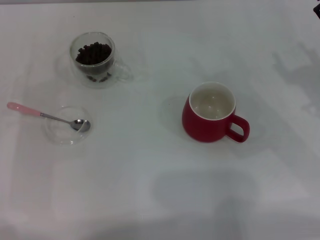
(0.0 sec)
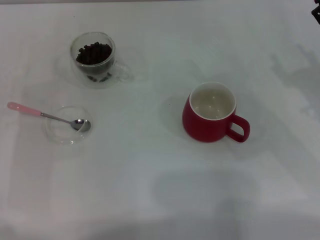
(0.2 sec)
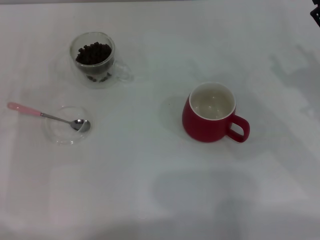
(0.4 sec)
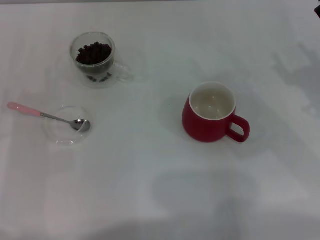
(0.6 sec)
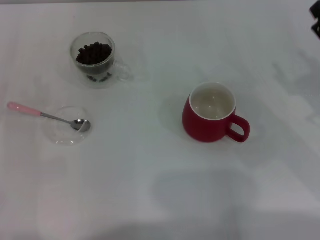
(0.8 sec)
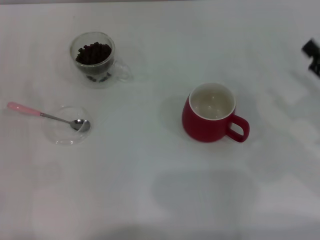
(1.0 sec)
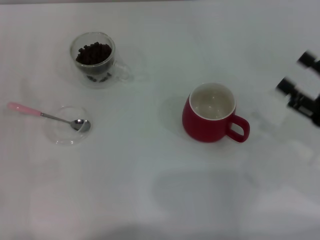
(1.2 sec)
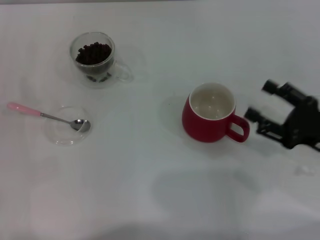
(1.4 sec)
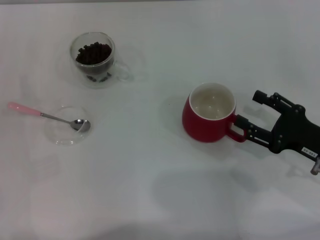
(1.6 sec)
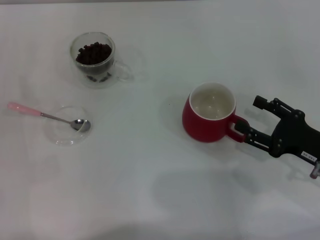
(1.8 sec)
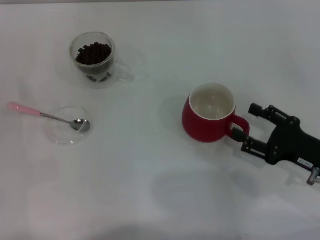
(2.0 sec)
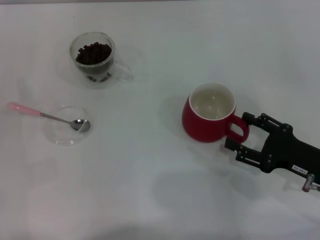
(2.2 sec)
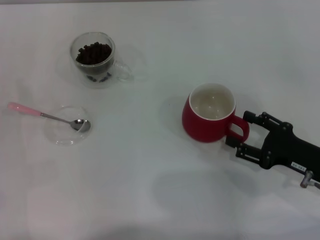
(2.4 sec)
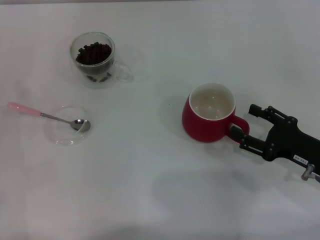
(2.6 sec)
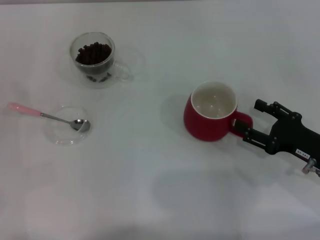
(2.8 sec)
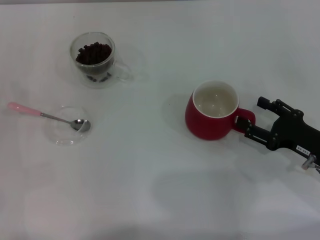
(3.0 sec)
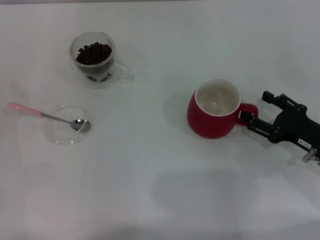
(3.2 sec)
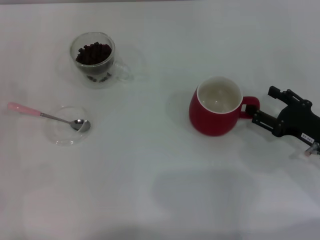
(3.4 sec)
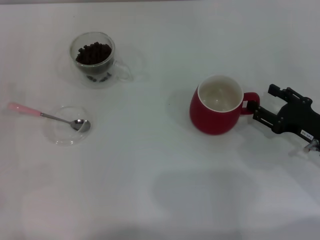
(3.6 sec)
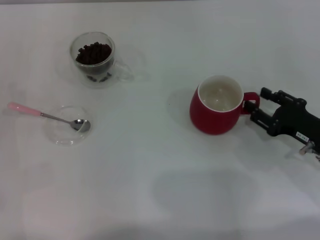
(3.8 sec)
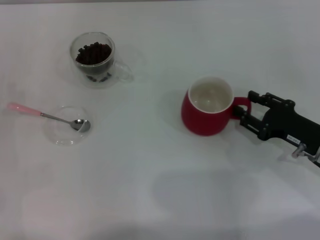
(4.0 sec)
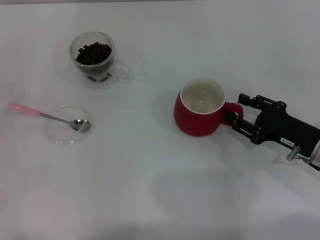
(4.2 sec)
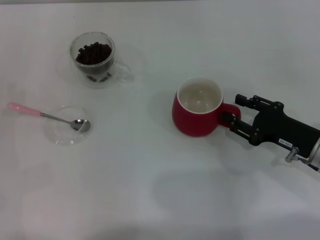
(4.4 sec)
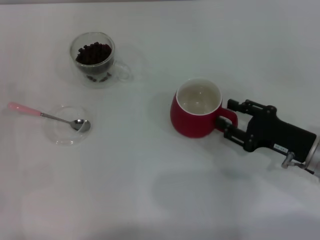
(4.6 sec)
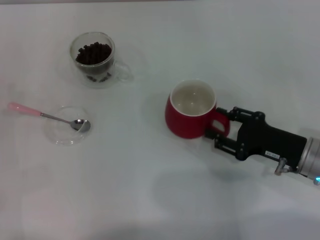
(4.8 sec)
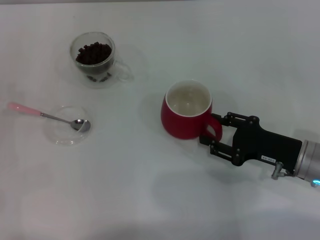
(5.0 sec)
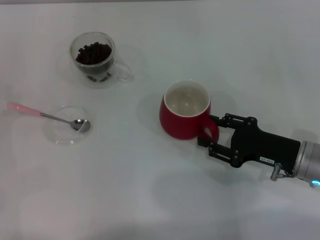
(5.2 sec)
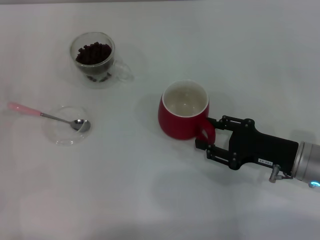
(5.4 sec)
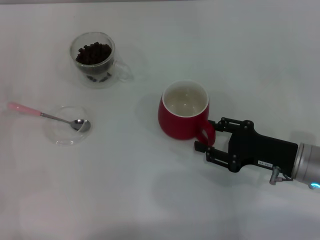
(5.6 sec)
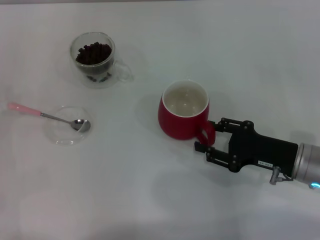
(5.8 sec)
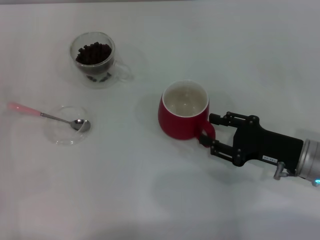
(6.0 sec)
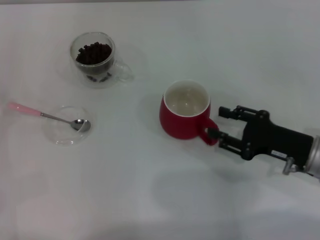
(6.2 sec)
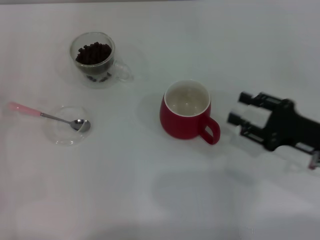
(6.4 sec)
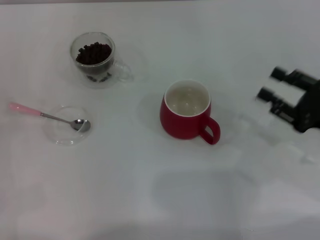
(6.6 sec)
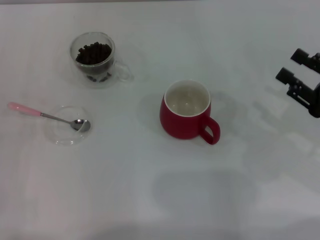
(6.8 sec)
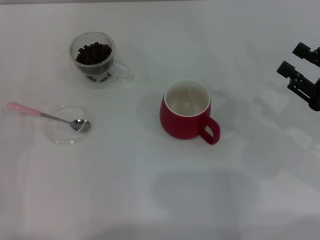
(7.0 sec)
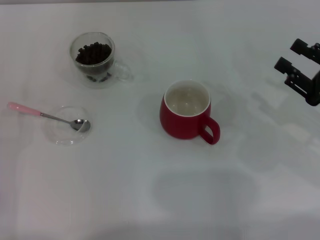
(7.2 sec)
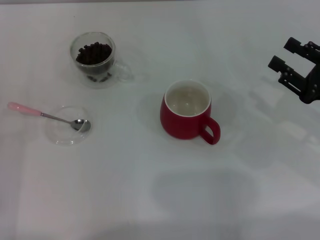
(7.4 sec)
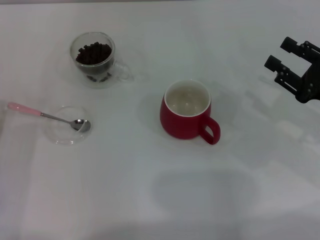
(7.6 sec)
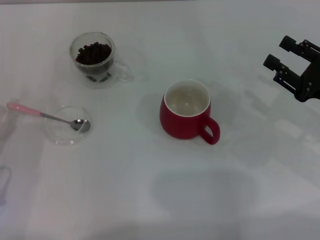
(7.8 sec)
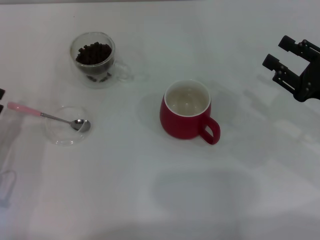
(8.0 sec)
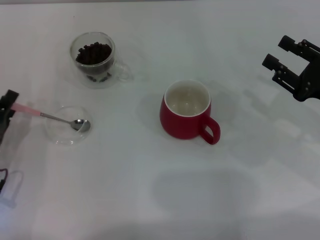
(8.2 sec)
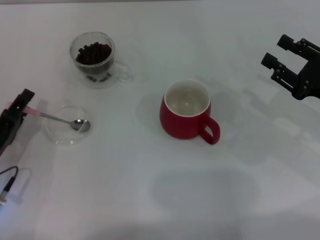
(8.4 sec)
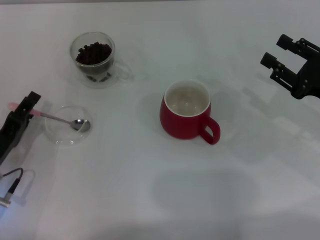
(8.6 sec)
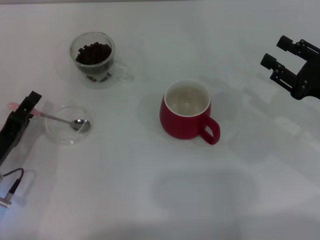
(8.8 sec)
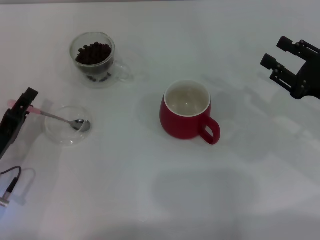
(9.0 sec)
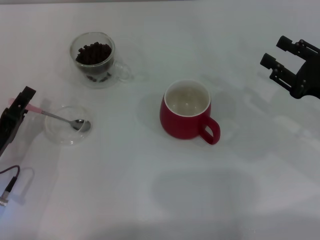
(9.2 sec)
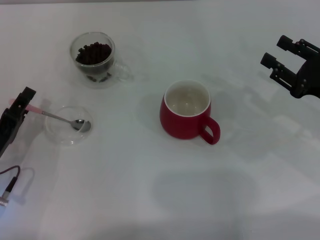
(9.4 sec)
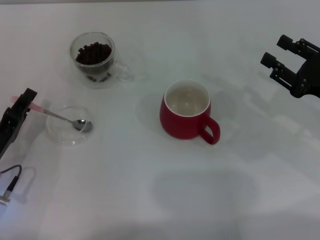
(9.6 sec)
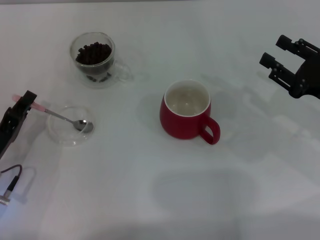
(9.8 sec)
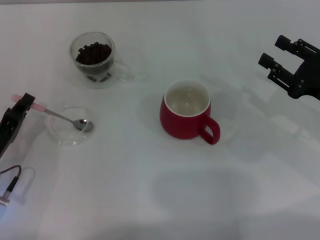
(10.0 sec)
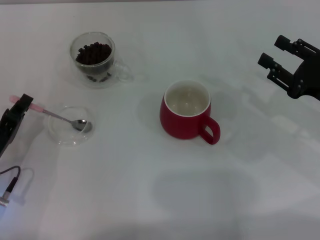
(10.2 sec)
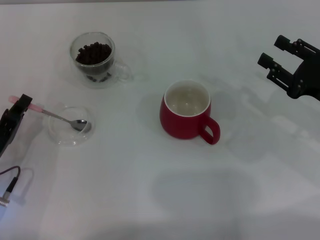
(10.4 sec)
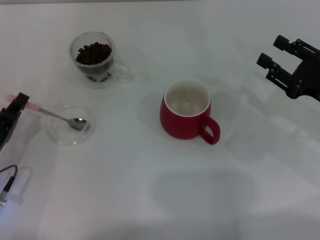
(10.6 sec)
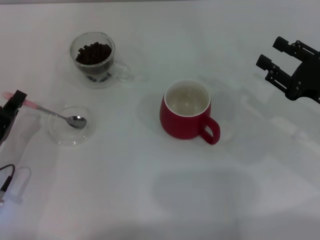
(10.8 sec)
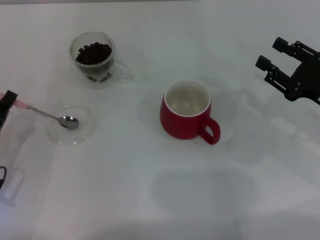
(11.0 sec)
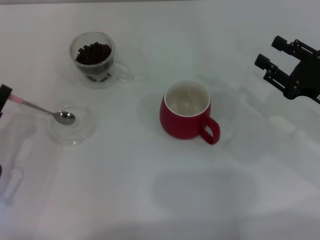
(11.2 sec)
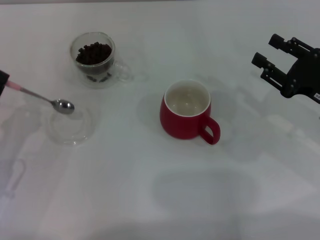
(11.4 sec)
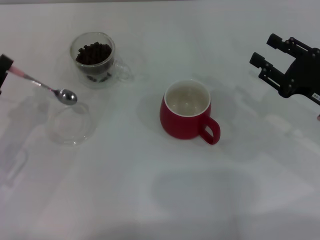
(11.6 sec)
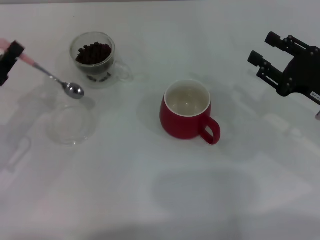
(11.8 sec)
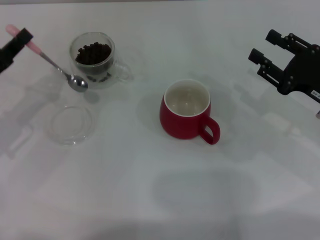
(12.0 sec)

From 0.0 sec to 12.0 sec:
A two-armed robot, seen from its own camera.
Task of the whole recording: Use a pink spoon to take out the coffee beans from the glass and pour them into the red cup.
Step, from 0.0 sec to 6.2 sec: Move the cup to the center of view with the left gripper.
Step, from 6.6 sec to 11.6 sec: Pick up the spoon with the right gripper.
From 0.0 sec to 1.6 sec: The right gripper is displaced backward by roughly 5 cm.
From 1.6 sec to 3.0 sec: The grippers make only small movements.
From 3.0 sec to 4.4 sec: The right gripper closes.
From 4.4 sec to 6.0 sec: The grippers make only small movements.
From 6.0 sec to 7.6 sec: The right gripper heads to the right, covering roughly 5 cm.
From 7.6 sec to 9.0 sec: The left gripper shifts by roughly 5 cm.
From 9.0 sec to 10.4 sec: The left gripper closes.
From 10.4 sec to 12.0 sec: The left gripper moves upward and forward, some 10 cm.

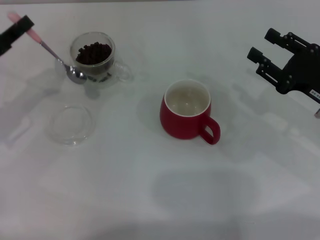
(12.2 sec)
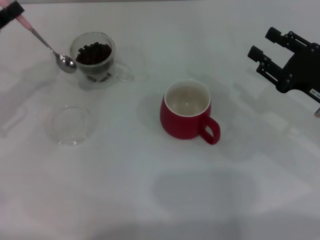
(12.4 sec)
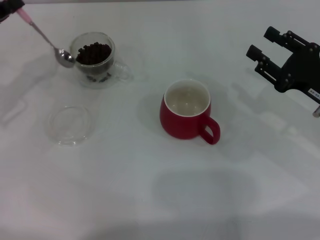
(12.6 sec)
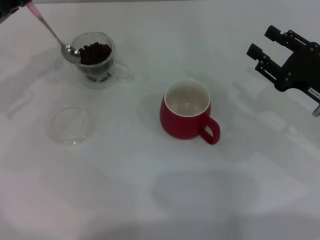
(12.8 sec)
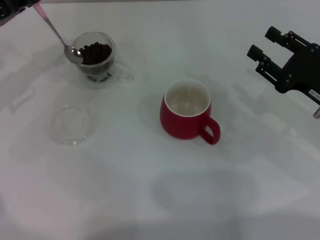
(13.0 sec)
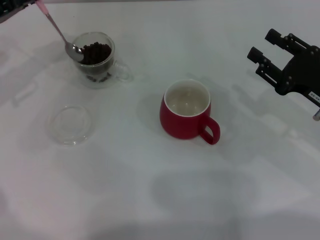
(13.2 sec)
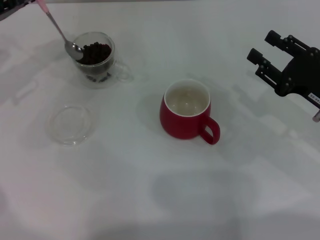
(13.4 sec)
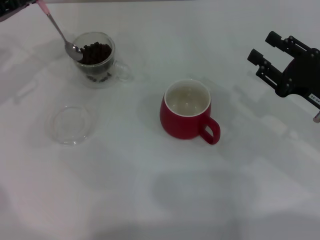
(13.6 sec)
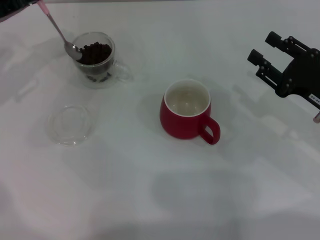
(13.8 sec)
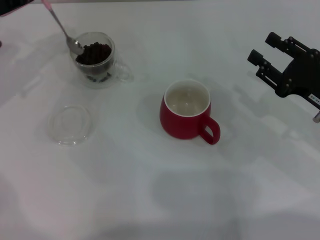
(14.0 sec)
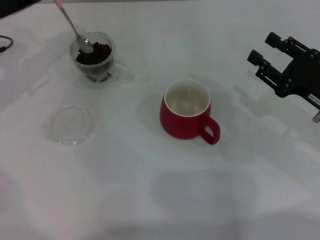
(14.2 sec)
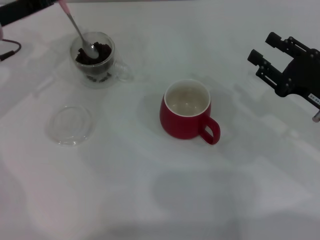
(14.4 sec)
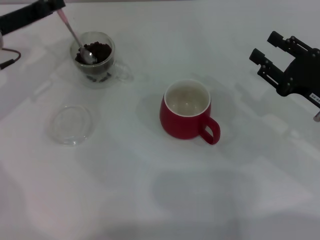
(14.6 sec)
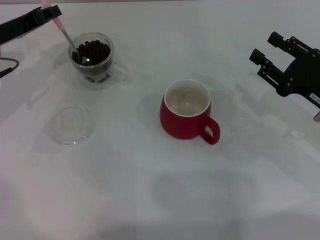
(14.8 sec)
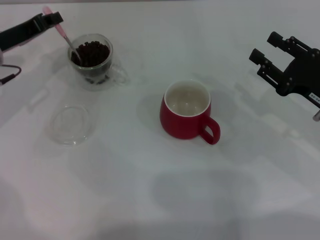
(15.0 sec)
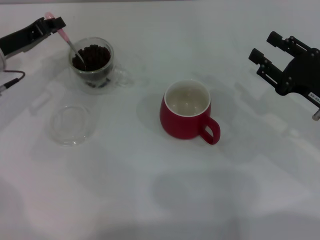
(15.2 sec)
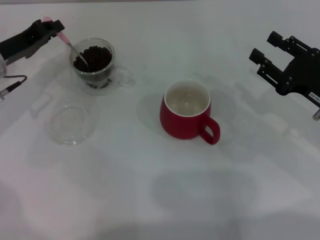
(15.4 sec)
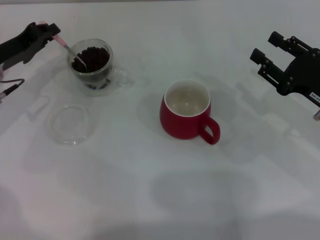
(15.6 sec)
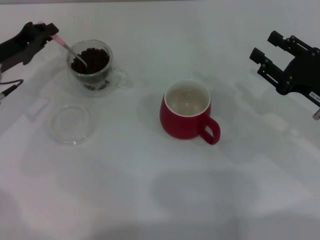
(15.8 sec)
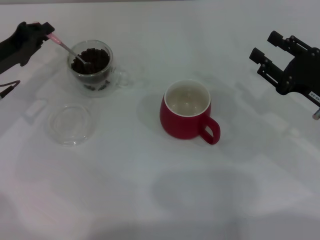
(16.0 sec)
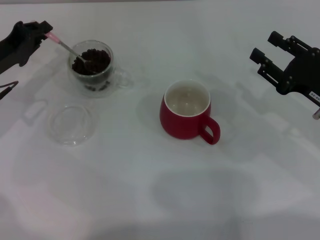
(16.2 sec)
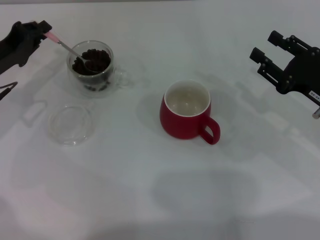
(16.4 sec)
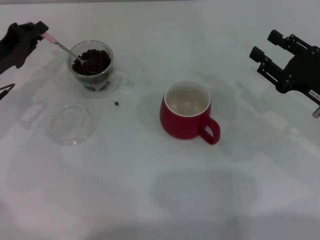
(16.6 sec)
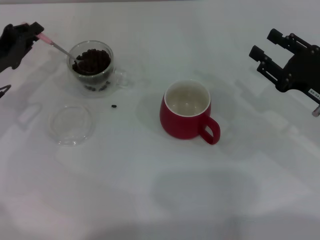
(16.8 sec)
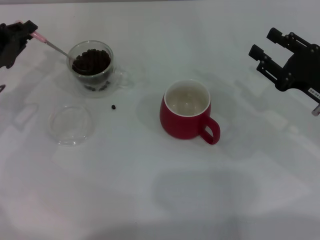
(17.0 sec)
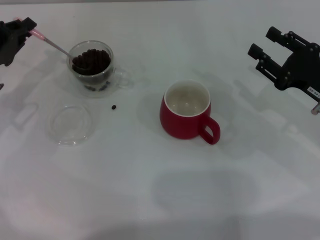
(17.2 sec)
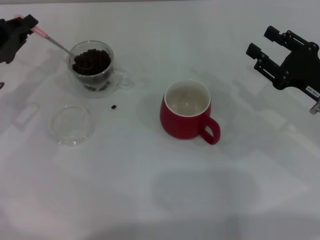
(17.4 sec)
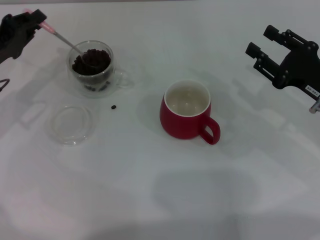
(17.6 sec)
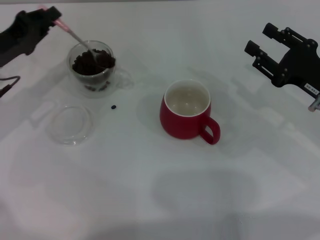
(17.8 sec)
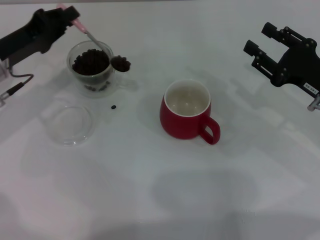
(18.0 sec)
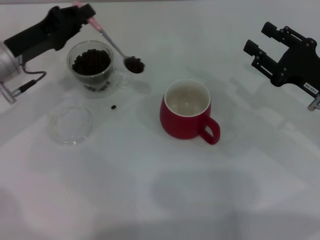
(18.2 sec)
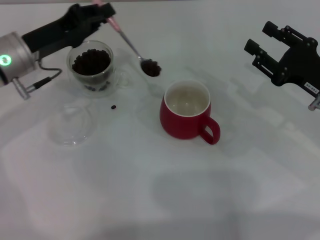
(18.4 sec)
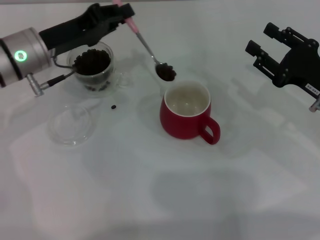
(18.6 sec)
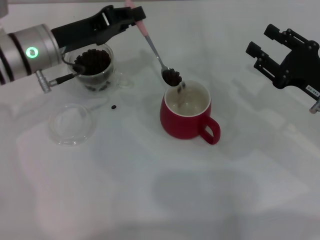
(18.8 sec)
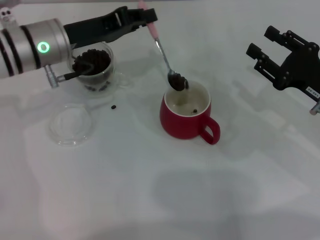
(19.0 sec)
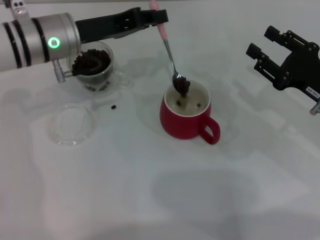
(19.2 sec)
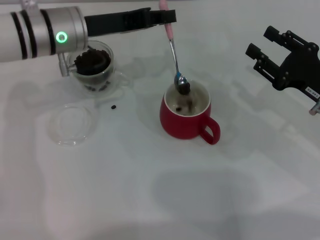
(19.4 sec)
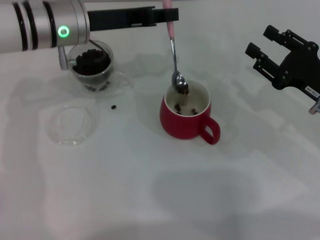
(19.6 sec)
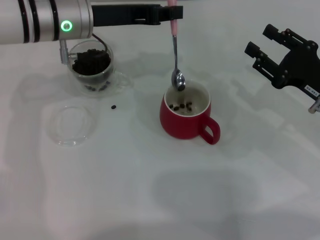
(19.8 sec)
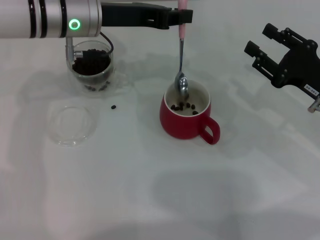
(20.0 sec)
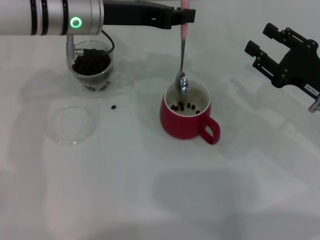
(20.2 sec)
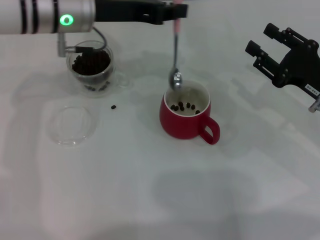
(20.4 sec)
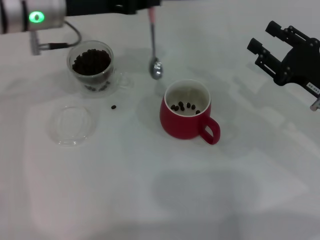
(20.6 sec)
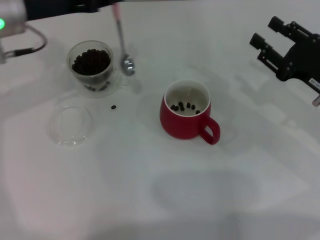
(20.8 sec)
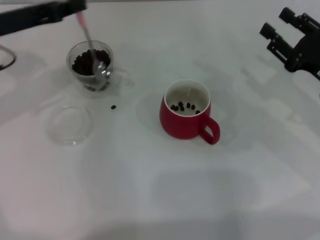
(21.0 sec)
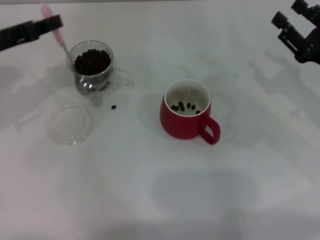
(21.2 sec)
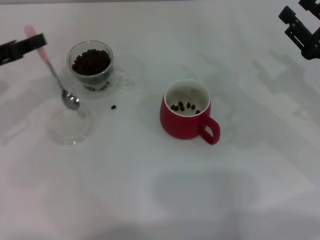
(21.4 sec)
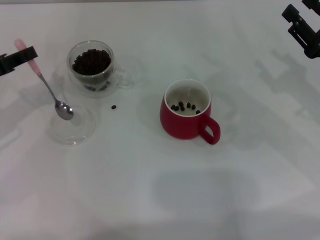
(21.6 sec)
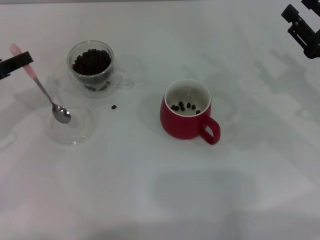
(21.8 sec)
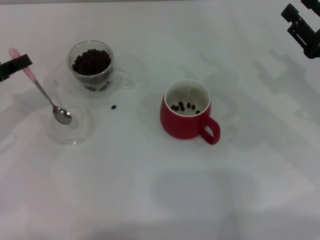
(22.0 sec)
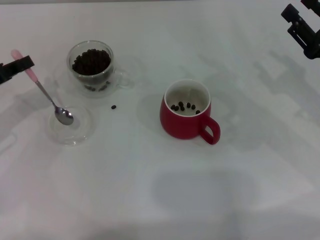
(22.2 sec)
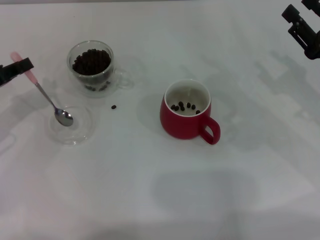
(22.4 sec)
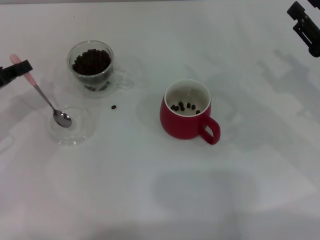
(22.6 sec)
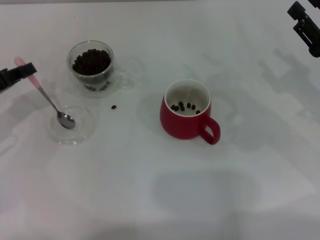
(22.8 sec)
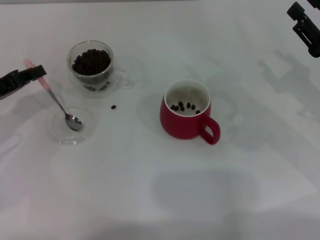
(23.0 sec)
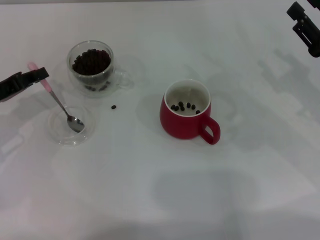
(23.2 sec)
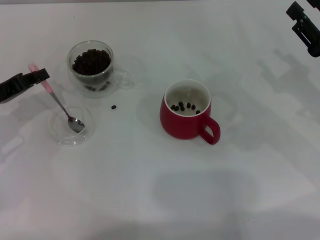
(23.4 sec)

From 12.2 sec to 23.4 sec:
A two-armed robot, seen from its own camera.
Task of the whole recording: Use a pink spoon to take out the coffee beans from the glass and pour them into the red cup.
From 12.2 sec to 13.8 sec: The left gripper shifts some 10 cm forward.
From 13.8 sec to 15.4 sec: The left gripper moves downward, some 5 cm.
From 15.4 sec to 17.0 sec: The grippers move only a little.
From 17.0 sec to 18.6 sec: The left gripper shifts some 10 cm to the right.
From 18.6 sec to 20.2 sec: The left gripper goes about 10 cm to the right and upward.
From 20.2 sec to 21.8 sec: The left gripper goes roughly 25 cm to the left and backward.
From 21.8 sec to 23.4 sec: The grippers make only small movements.
